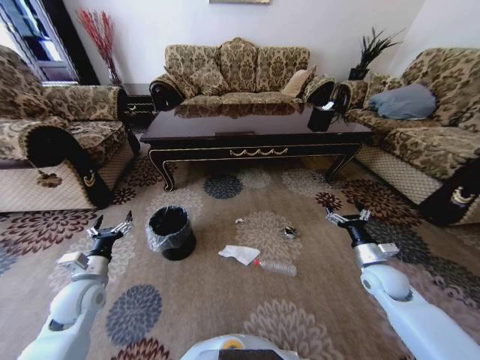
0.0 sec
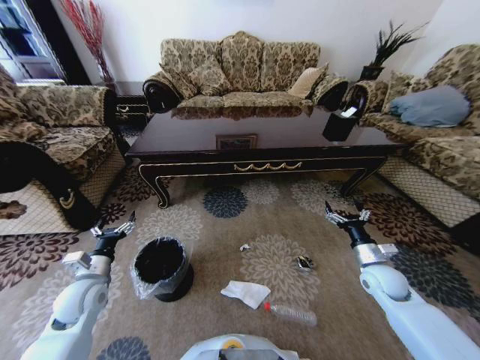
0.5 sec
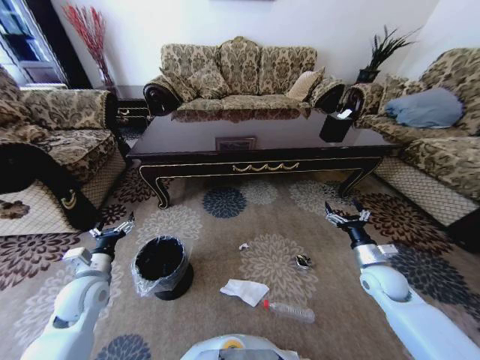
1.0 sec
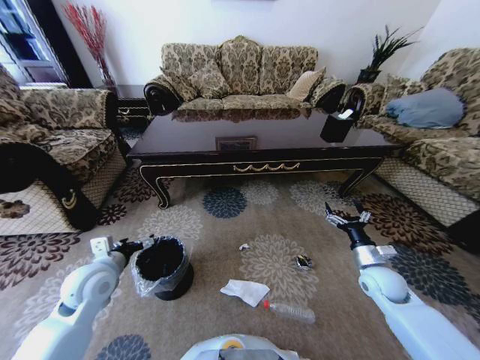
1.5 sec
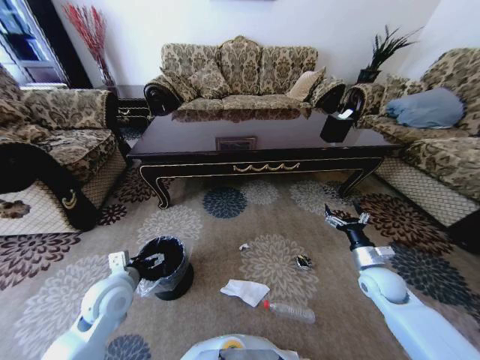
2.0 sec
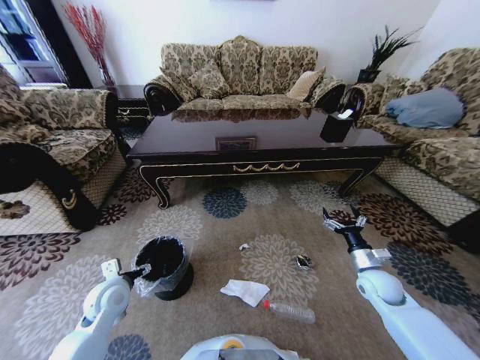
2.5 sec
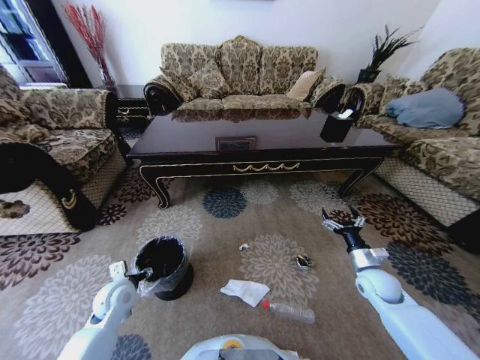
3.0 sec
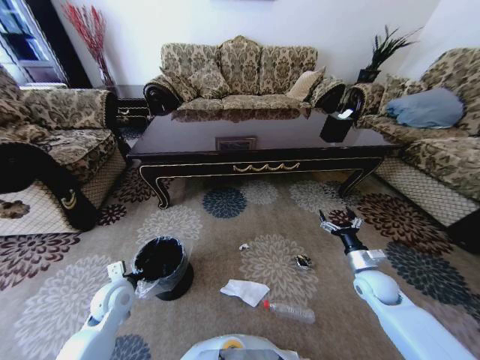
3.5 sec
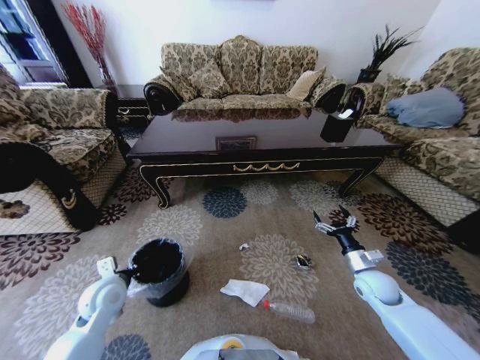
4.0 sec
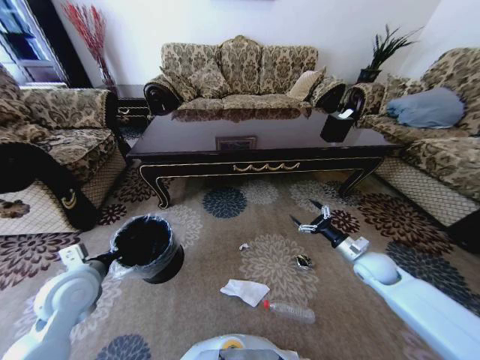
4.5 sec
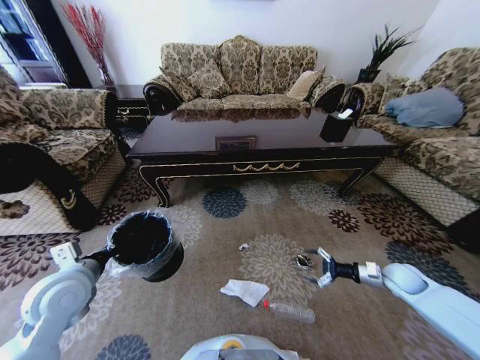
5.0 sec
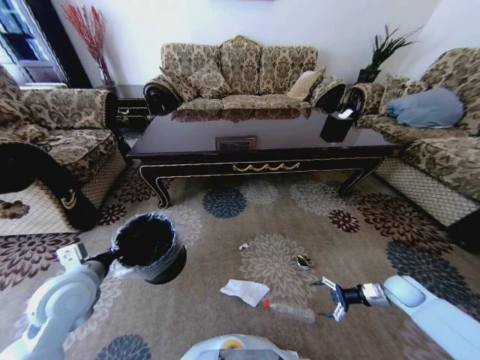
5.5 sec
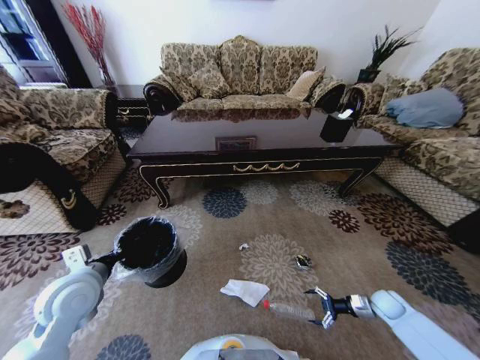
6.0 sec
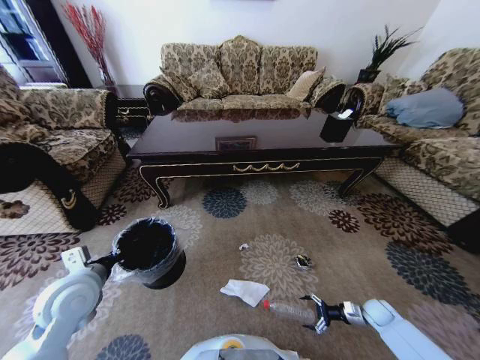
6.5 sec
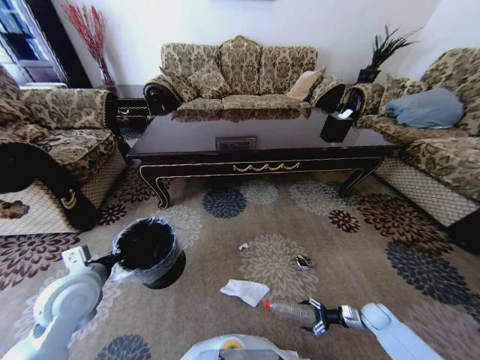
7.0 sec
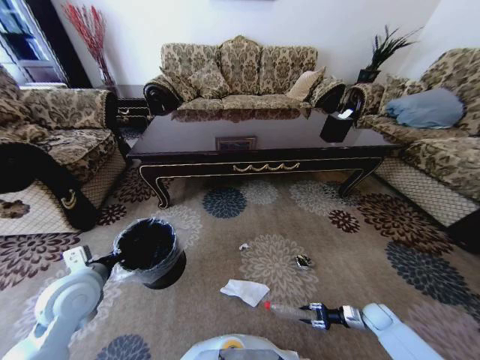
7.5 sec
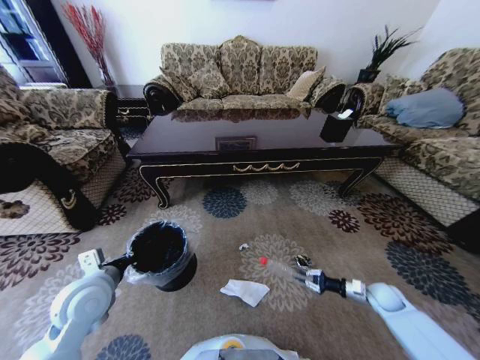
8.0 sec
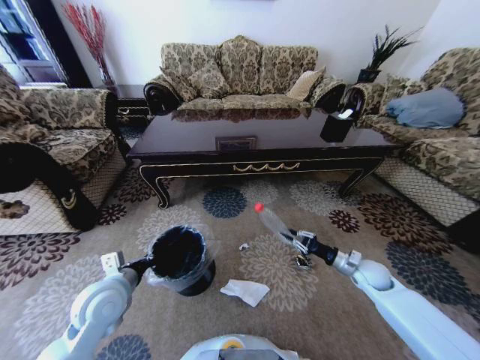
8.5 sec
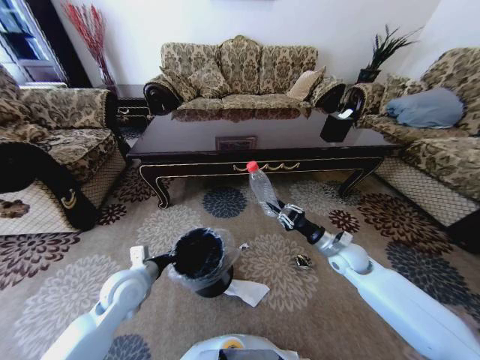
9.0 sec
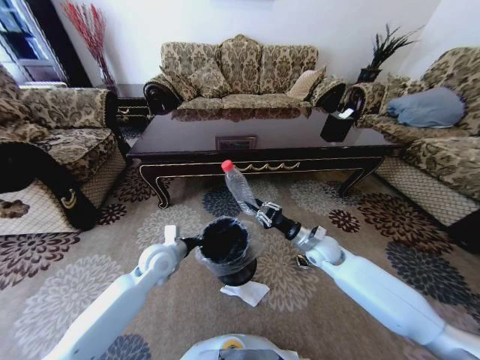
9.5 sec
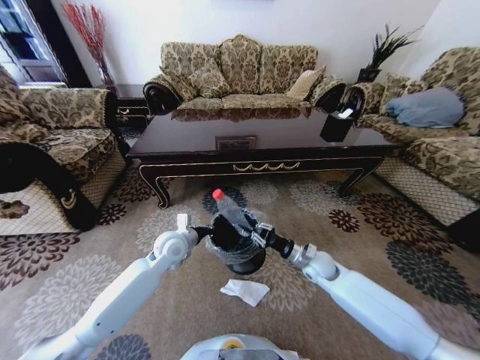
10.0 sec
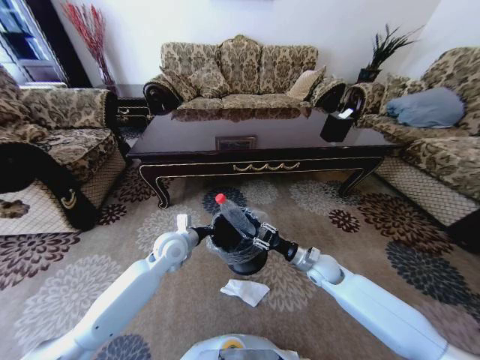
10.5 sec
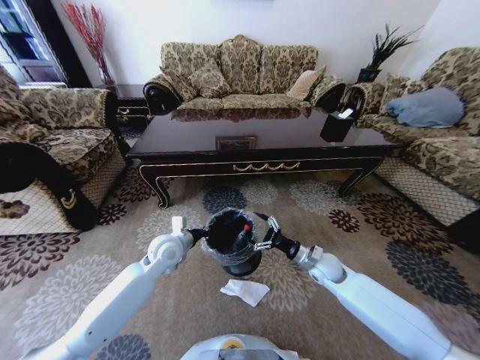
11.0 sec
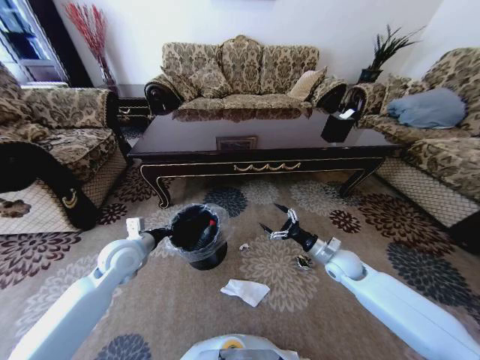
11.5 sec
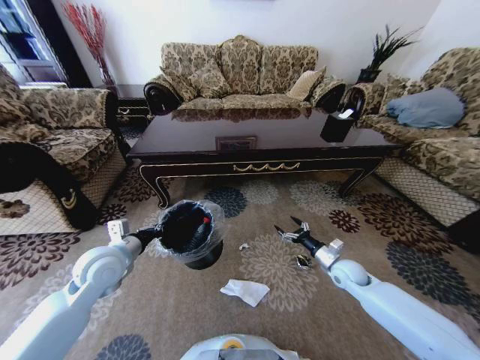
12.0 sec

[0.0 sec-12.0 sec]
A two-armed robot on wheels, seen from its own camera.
Task of the whole recording: Move to the front of the table and pick up the trash from the floor, then place it into the trash bin.
0.0 sec to 2.0 sec: The left gripper travels to the right by some 10 cm.
2.0 sec to 4.0 sec: The left gripper closes up.
4.0 sec to 6.0 sec: The left gripper heads upward, covering roughly 10 cm; the right gripper shifts some 15 cm downward and to the right.
6.0 sec to 8.0 sec: The right gripper travels downward and back again, approximately 5 cm each way, and closes its fingers.
8.0 sec to 10.0 sec: The right gripper goes some 25 cm to the left; the left gripper moves forward and to the right, approximately 20 cm.
10.0 sec to 12.0 sec: The right gripper goes approximately 10 cm to the right, and opens, while the left gripper is displaced to the left, backward and upward by approximately 15 cm.

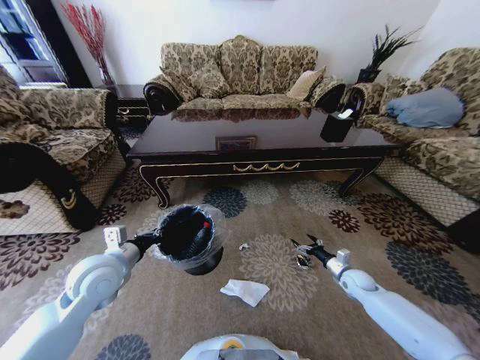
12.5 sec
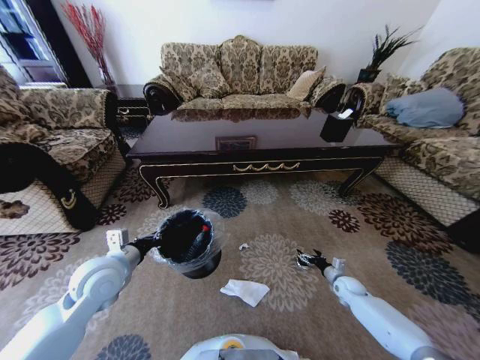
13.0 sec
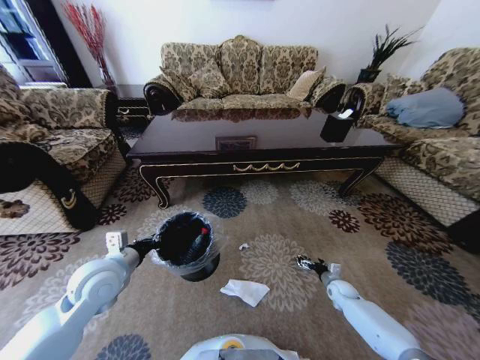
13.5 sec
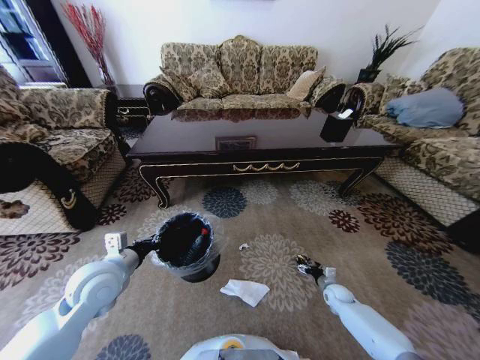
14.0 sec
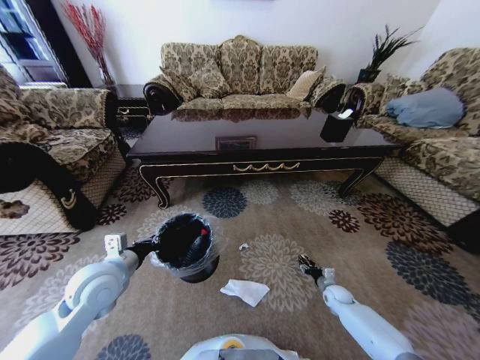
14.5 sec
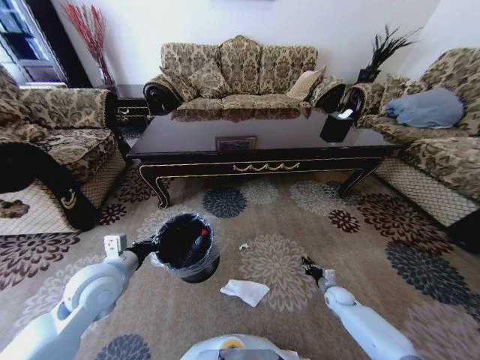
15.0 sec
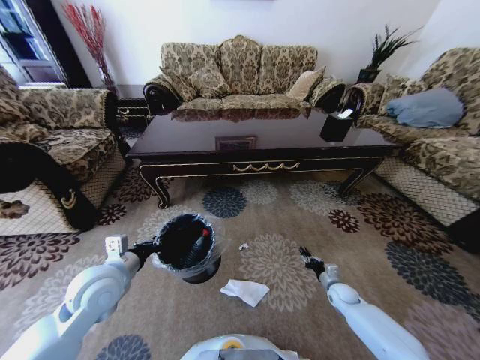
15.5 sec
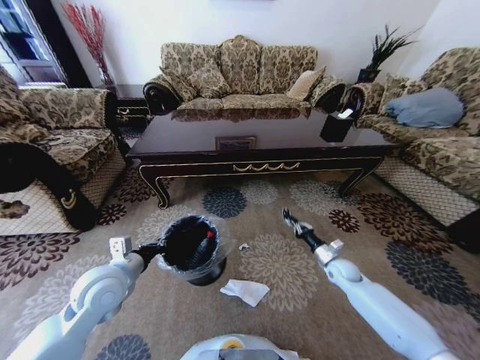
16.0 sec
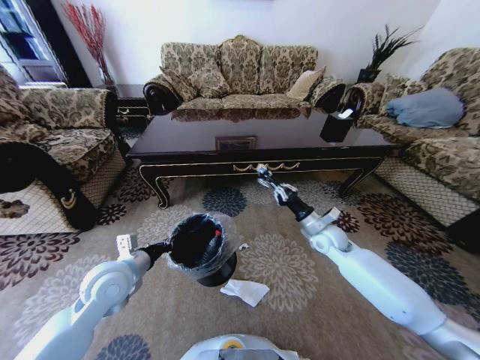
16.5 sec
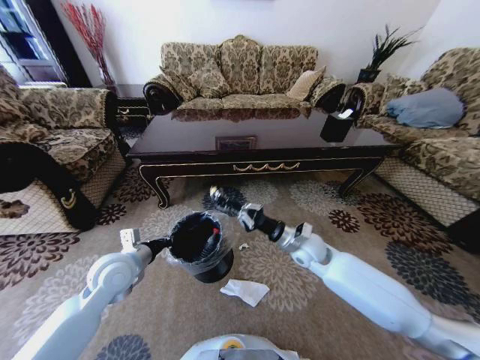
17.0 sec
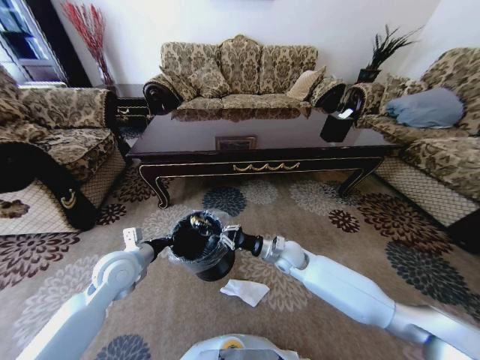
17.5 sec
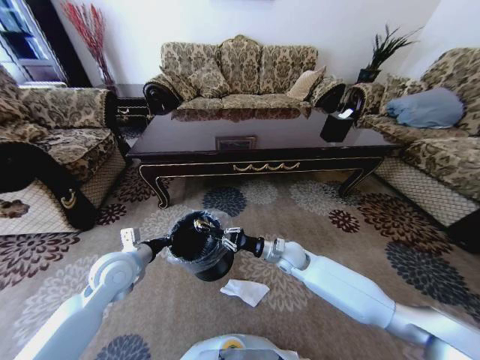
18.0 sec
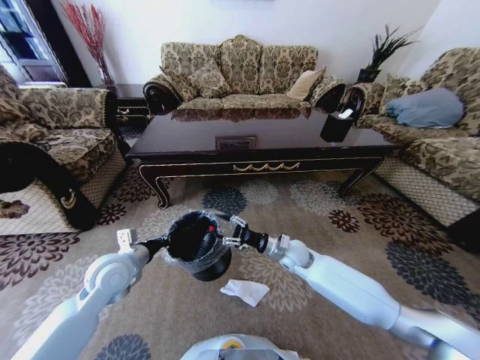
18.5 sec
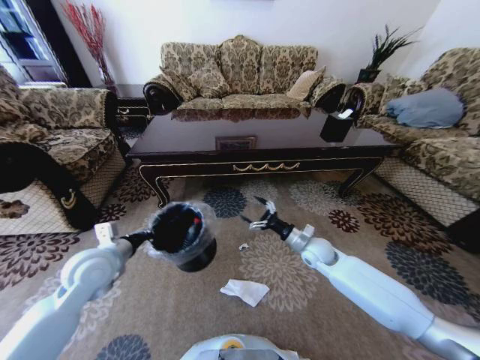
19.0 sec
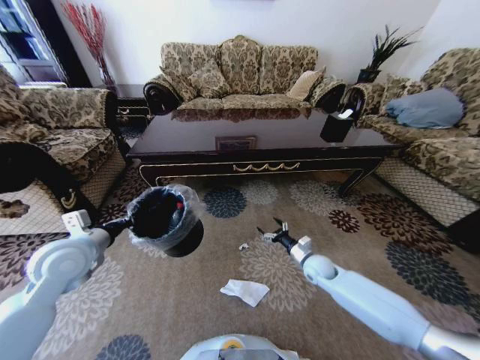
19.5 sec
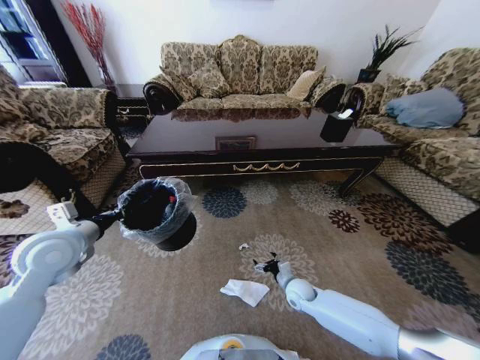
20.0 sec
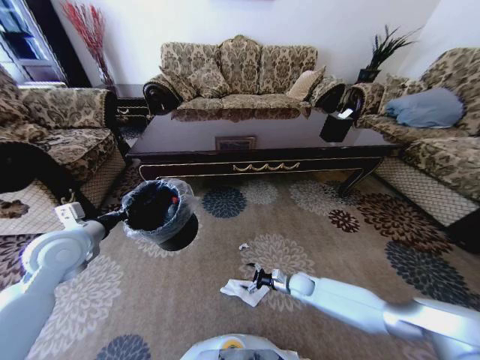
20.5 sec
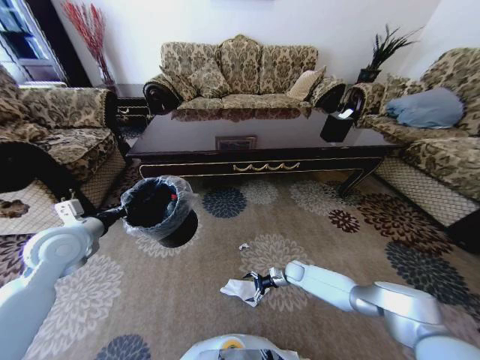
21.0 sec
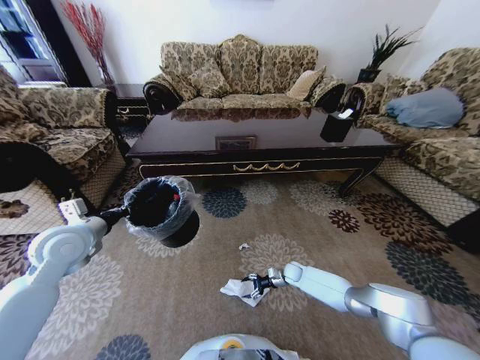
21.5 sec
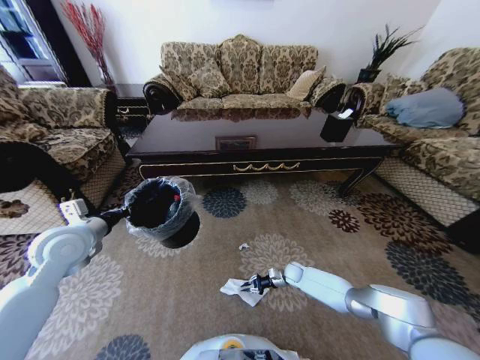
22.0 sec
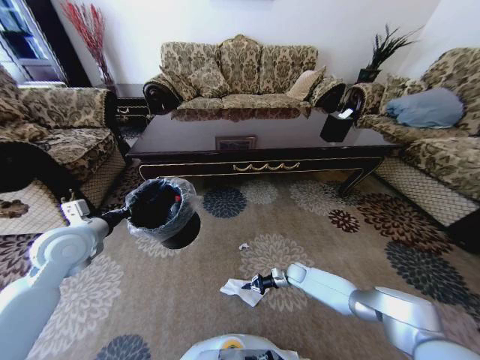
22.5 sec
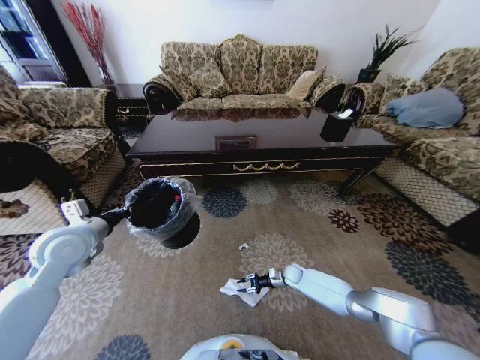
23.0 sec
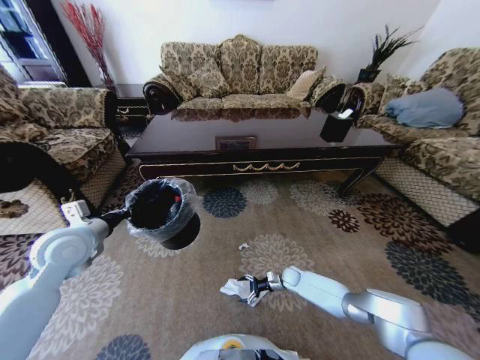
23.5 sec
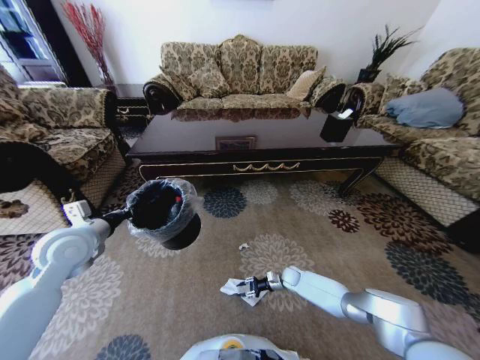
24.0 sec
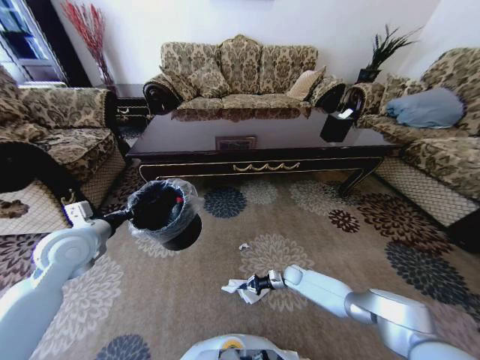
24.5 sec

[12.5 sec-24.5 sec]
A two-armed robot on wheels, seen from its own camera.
Task of the whole recording: Move to the front of the table and pick up the trash from the floor, then place it into the trash bin.
12.5 sec to 14.5 sec: The right gripper travels downward by about 10 cm, and closes its fingers.
14.5 sec to 16.5 sec: The right gripper heads upward and to the left, covering some 30 cm, and closes its fingers.
16.5 sec to 18.5 sec: The right gripper travels to the left and downward by about 10 cm, and opens.
18.5 sec to 20.5 sec: The left gripper shifts about 10 cm to the left and upward; the right gripper shifts about 20 cm downward and to the right, and opens up.
20.5 sec to 22.5 sec: The right gripper shifts approximately 5 cm forward, and closes up.
22.5 sec to 24.5 sec: The right gripper opens and closes again.

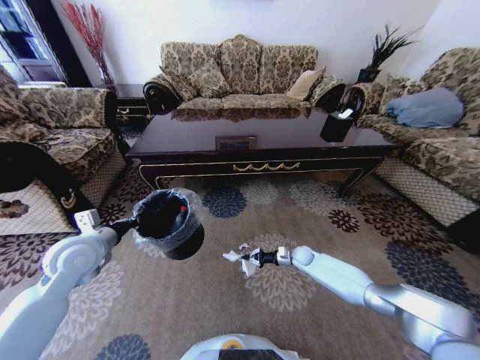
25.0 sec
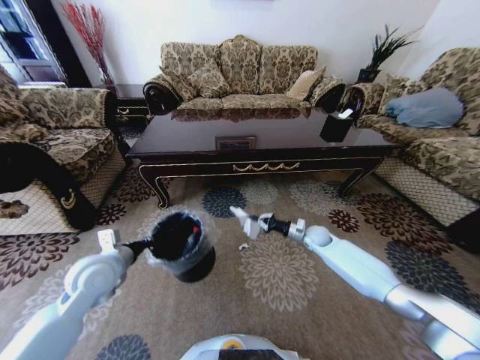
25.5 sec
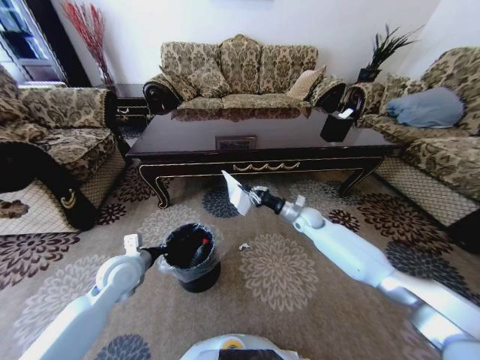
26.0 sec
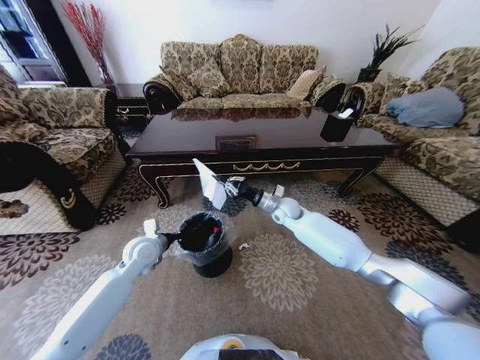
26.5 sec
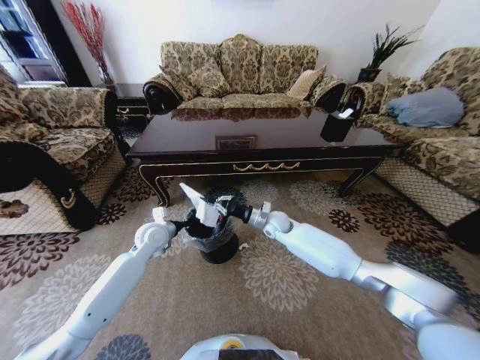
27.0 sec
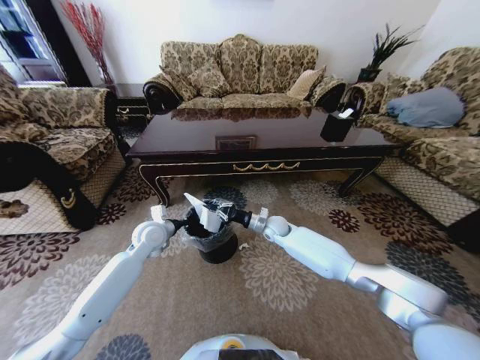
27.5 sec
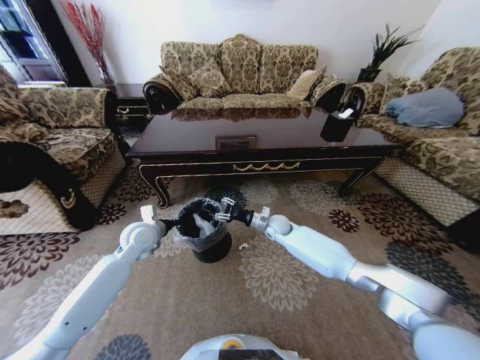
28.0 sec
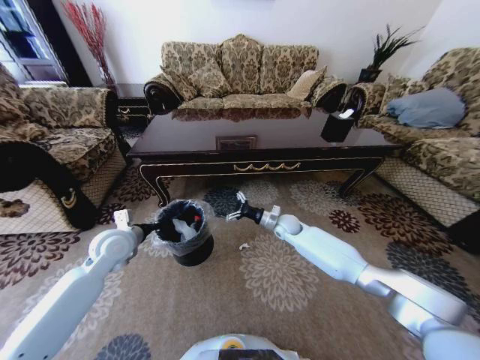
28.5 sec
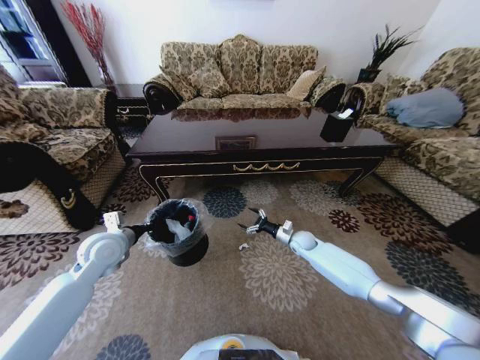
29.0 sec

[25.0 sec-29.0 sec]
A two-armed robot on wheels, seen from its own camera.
Task of the whole recording: Move to the front of the table and pick up the trash from the floor, then place it into the trash bin.
25.0 sec to 27.0 sec: The left gripper moves forward, to the right and downward, some 20 cm. The right gripper is displaced upward and to the left by about 25 cm.
27.0 sec to 29.0 sec: The right gripper heads to the right and downward, covering approximately 15 cm, and opens. The left gripper heads to the left and backward, covering some 10 cm.
